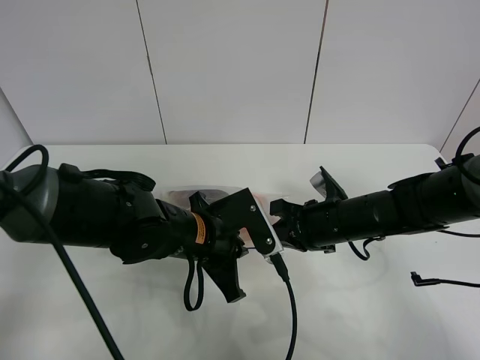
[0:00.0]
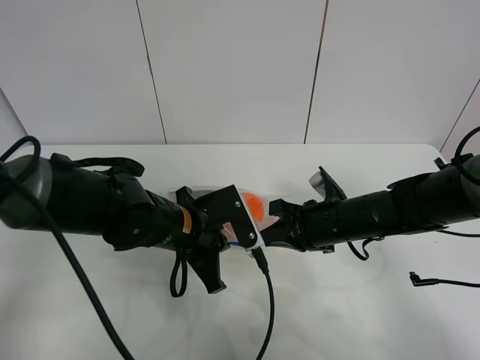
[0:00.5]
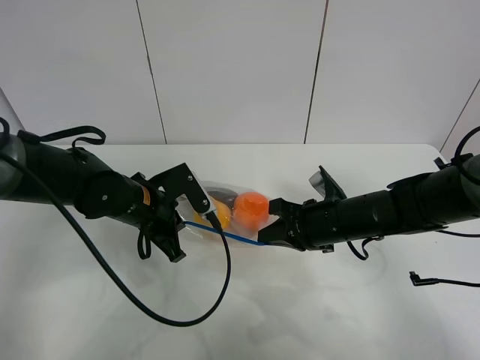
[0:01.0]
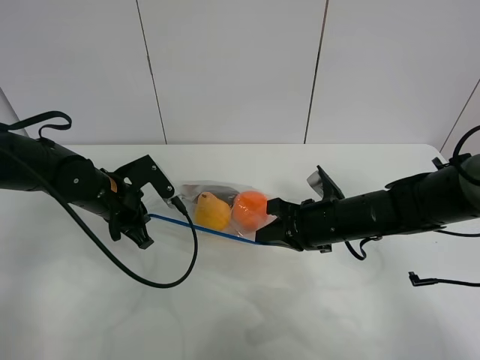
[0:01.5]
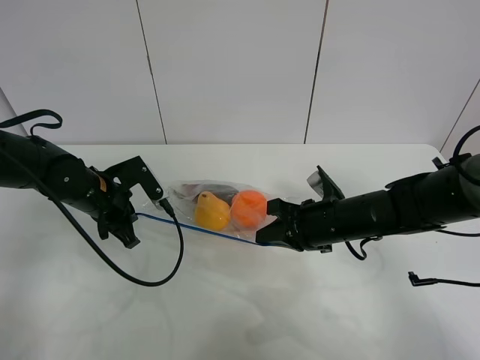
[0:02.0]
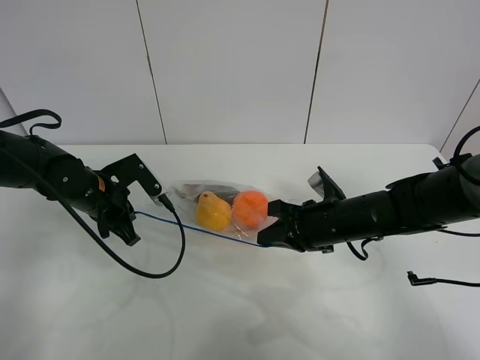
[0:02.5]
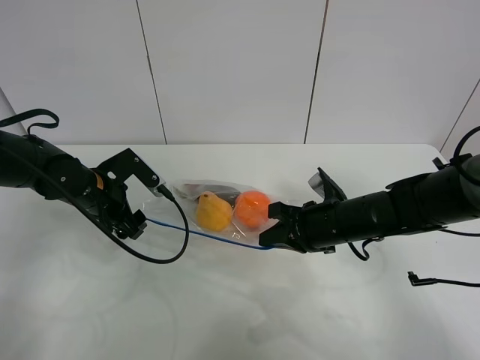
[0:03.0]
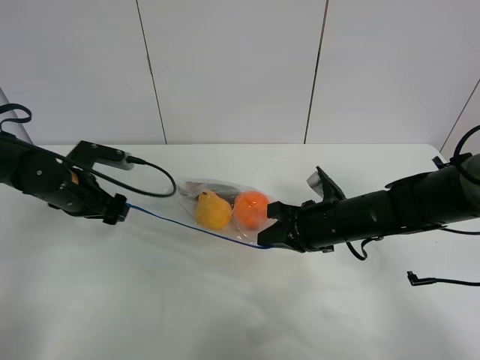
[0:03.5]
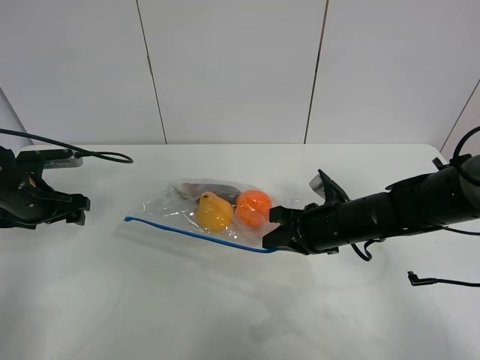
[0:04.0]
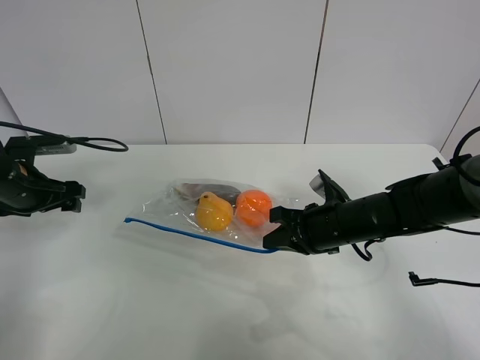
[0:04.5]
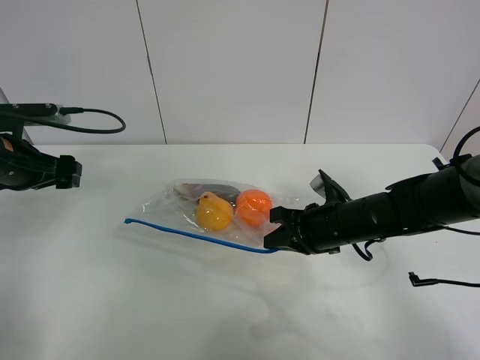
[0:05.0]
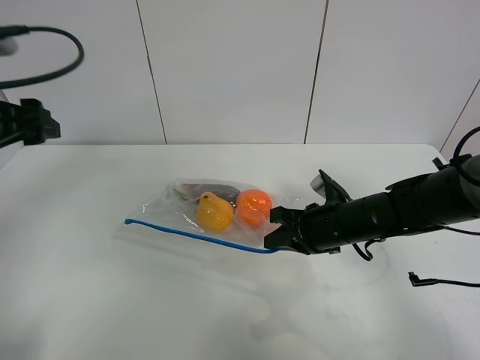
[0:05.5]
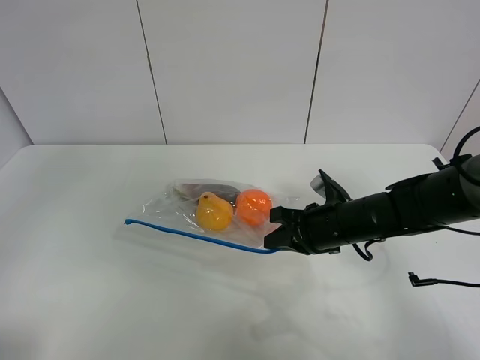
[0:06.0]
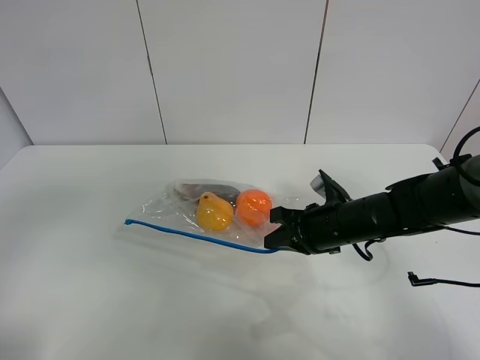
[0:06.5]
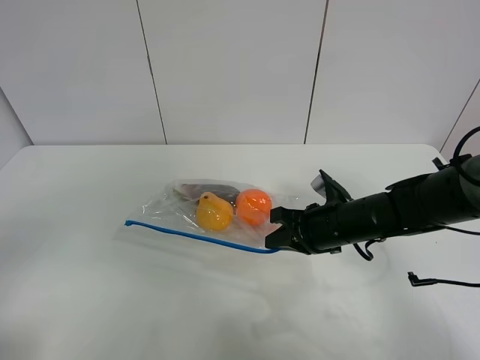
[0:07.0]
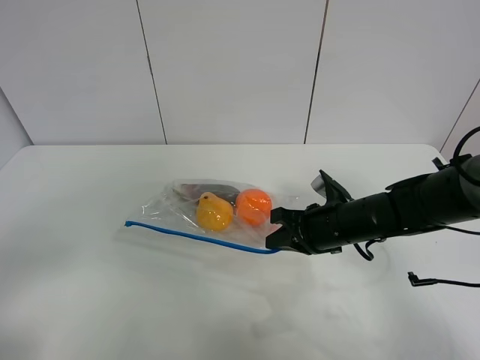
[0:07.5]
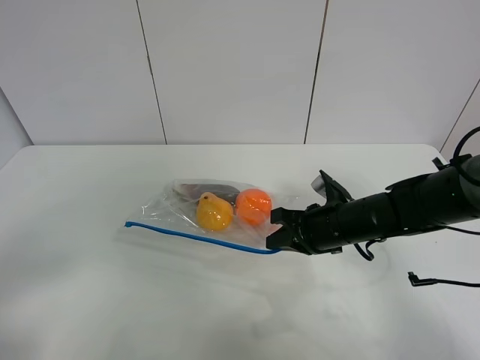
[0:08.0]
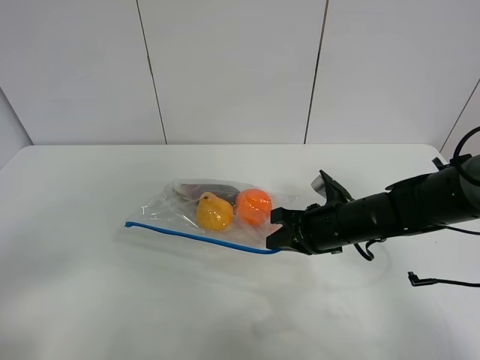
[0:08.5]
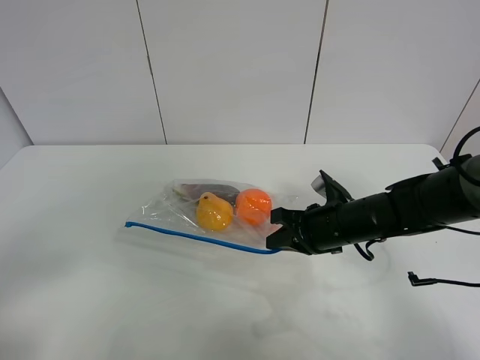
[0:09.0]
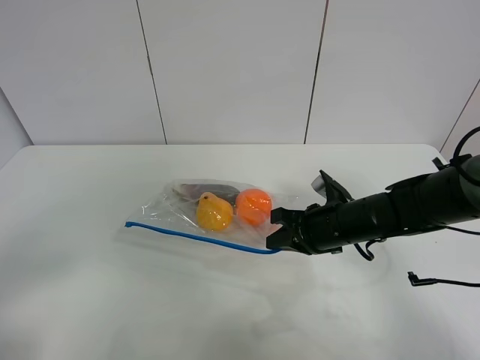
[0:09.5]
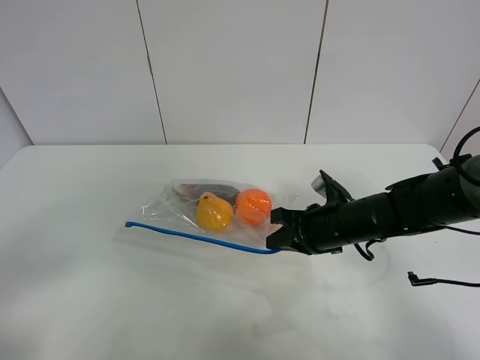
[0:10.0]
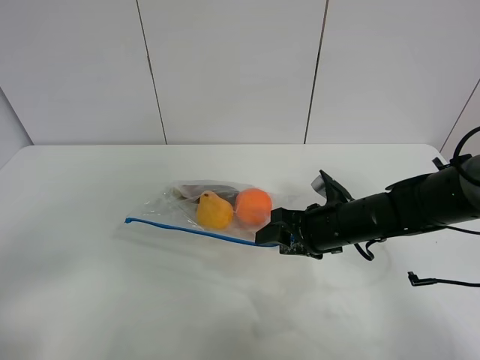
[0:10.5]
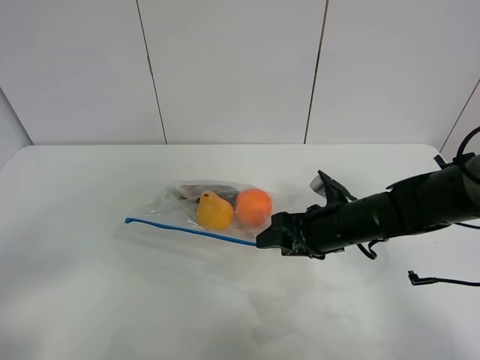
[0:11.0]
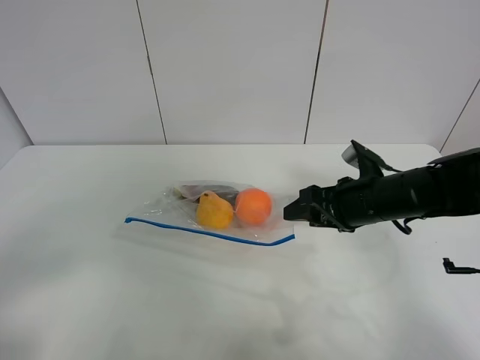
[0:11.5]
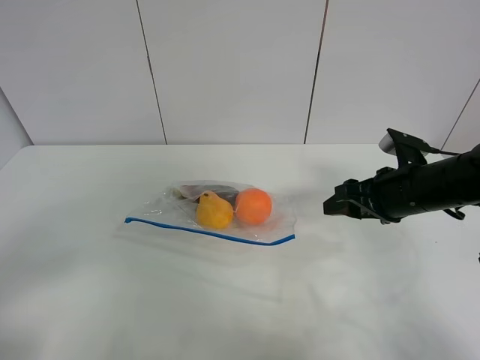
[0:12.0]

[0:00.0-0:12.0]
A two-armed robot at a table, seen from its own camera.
Step, 0:00.0 to 0:03.0: Pull the fruit bag with left gripper.
0:00.0 to 0:02.0: The left gripper heads to the left and forward, covering approximately 20 cm.
0:02.0 to 0:04.0: The left gripper goes about 10 cm to the left, and opens its fingers.
0:04.0 to 0:06.0: The left gripper travels upward and backward by about 35 cm.
0:06.0 to 0:08.0: The left gripper heads downward and backward, covering about 20 cm.
0:08.0 to 0:10.0: Neither gripper changes place.
0:10.0 to 0:12.0: The right gripper travels to the right and upward by roughly 10 cm, and opens up.

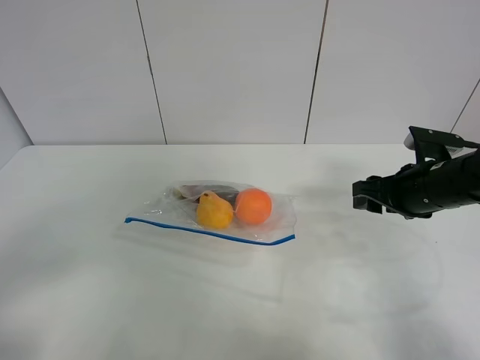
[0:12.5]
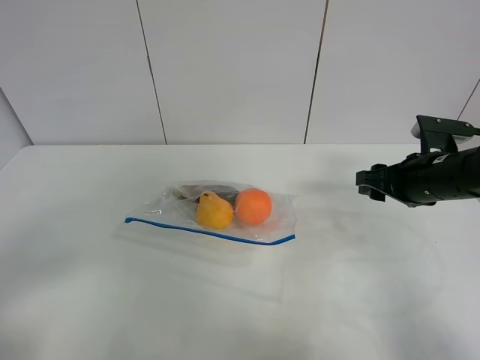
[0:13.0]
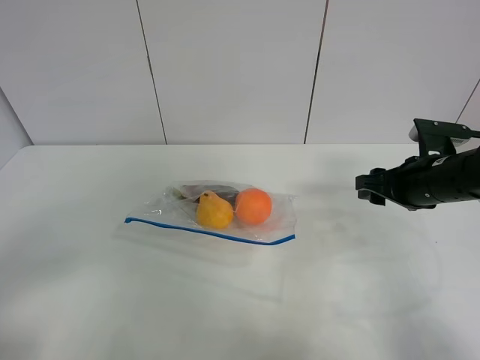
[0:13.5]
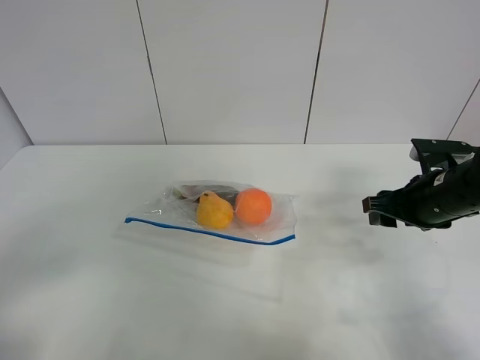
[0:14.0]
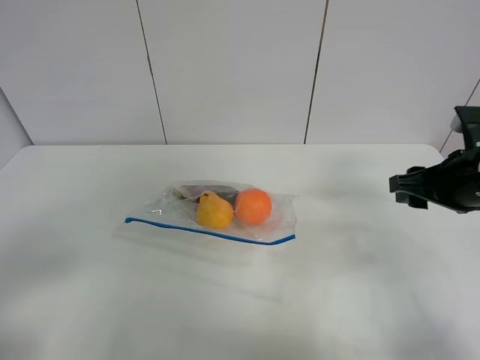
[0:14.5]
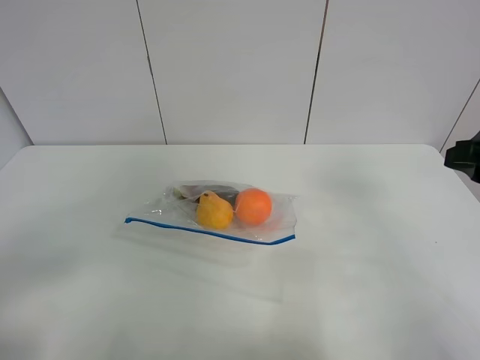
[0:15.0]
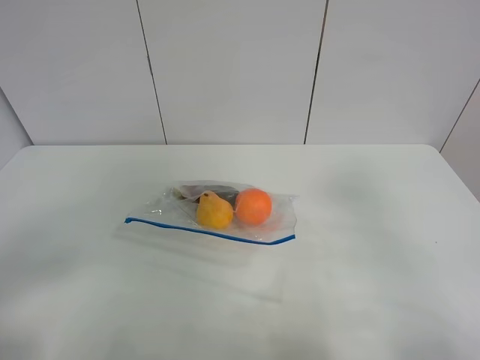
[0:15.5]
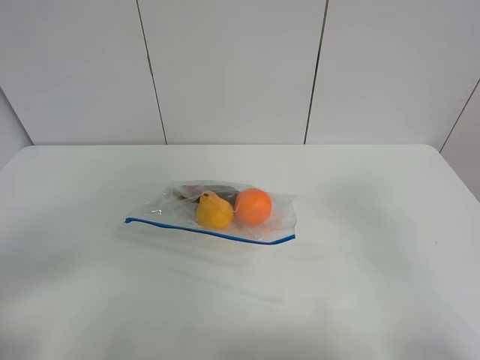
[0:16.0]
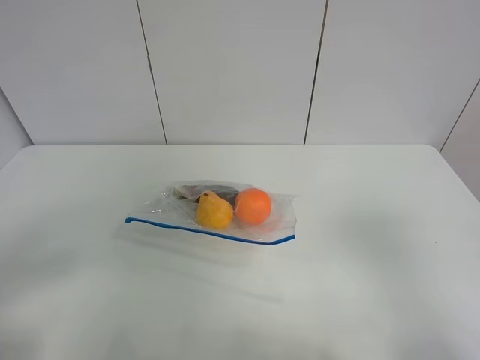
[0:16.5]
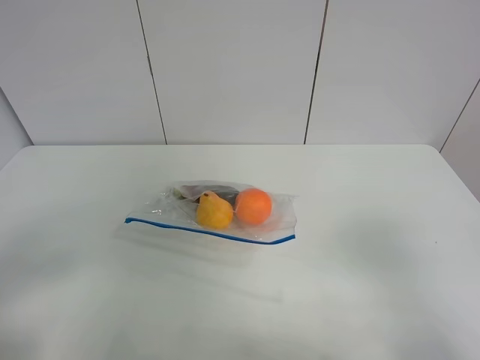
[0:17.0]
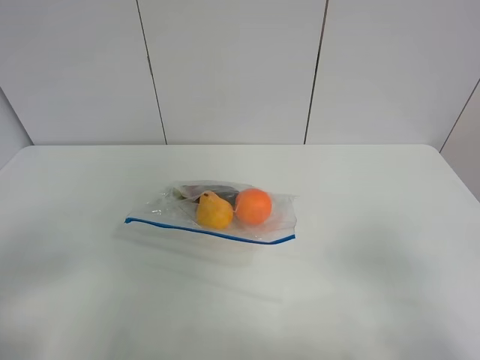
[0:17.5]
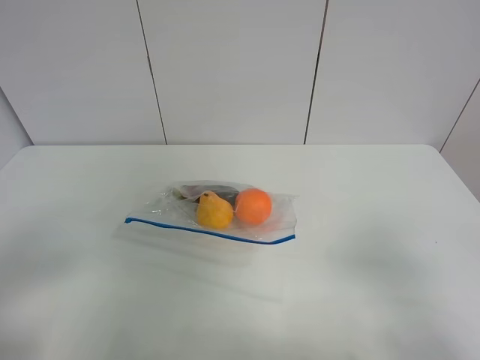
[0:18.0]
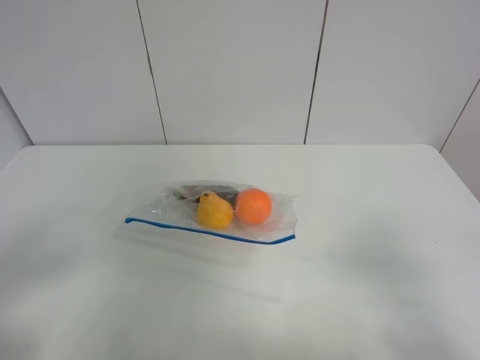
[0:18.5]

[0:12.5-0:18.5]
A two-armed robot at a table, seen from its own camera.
0:12.5 to 0:14.5: The right gripper shifts about 5 cm upward.
0:14.5 to 0:16.5: The right gripper goes about 25 cm backward.

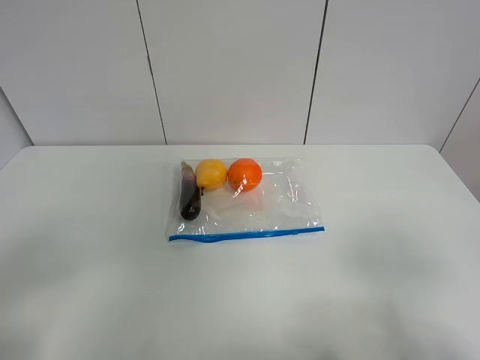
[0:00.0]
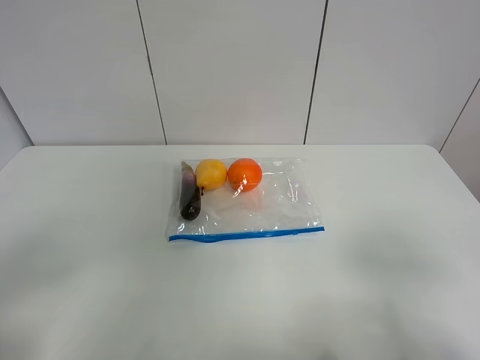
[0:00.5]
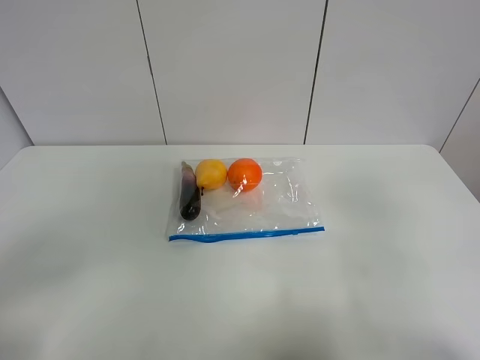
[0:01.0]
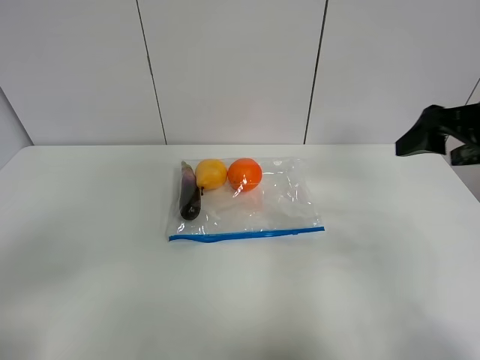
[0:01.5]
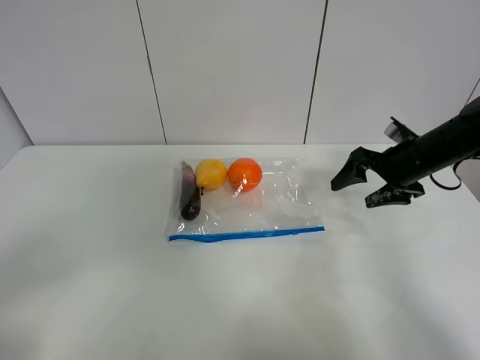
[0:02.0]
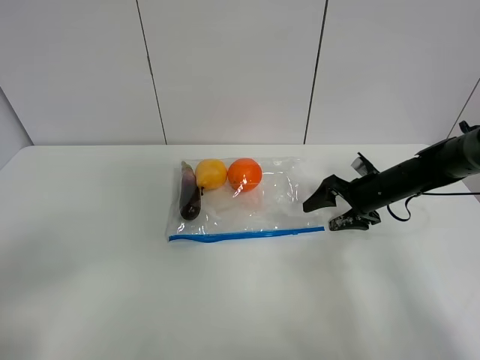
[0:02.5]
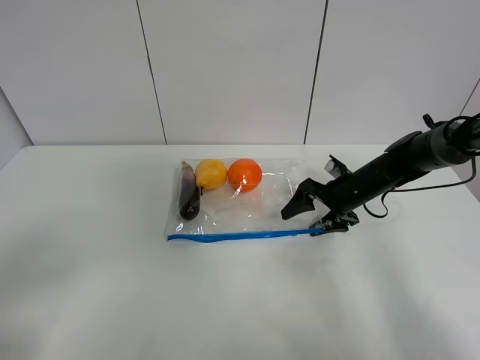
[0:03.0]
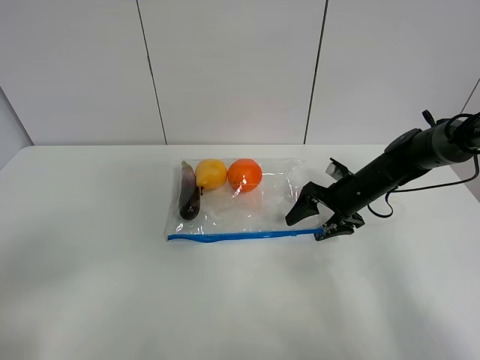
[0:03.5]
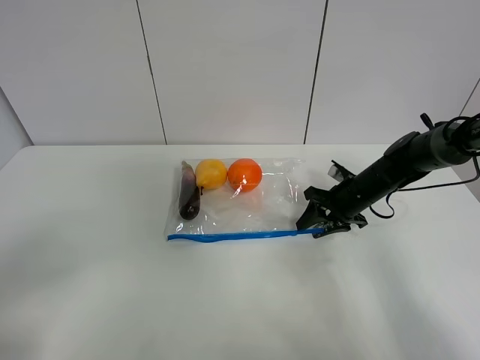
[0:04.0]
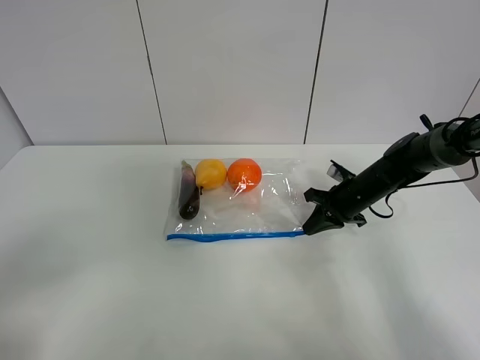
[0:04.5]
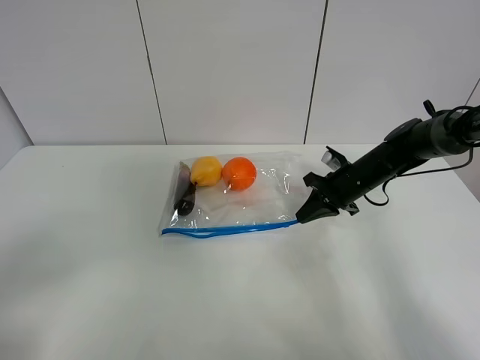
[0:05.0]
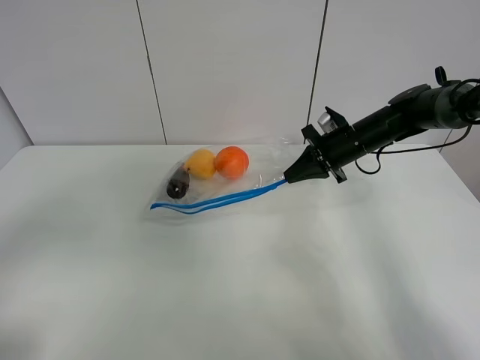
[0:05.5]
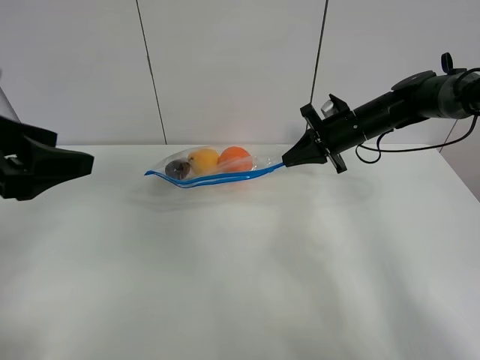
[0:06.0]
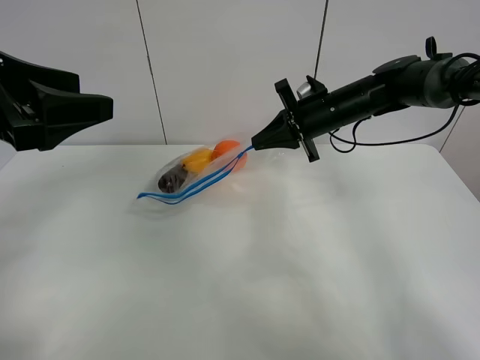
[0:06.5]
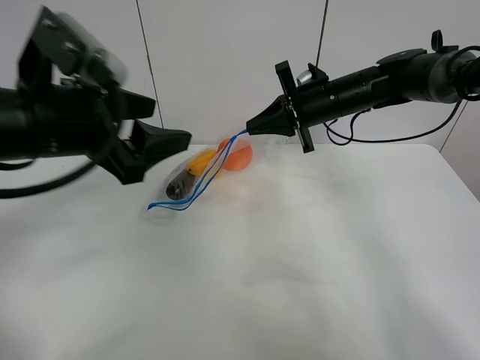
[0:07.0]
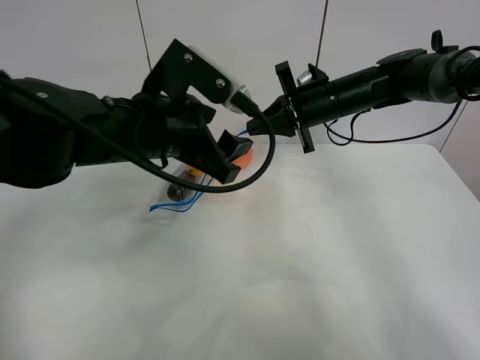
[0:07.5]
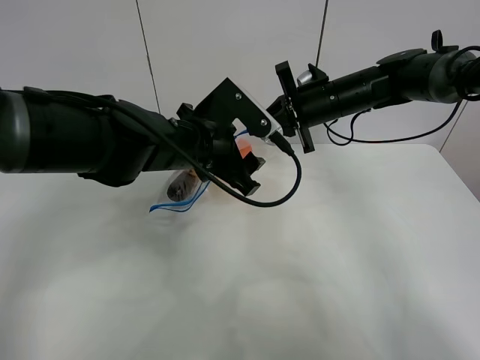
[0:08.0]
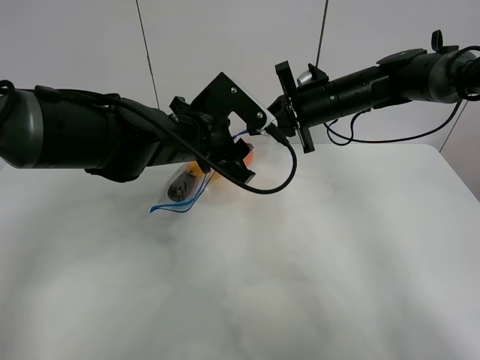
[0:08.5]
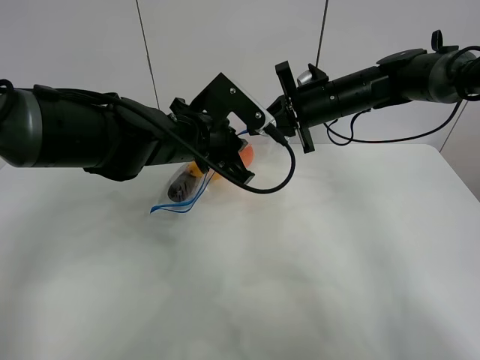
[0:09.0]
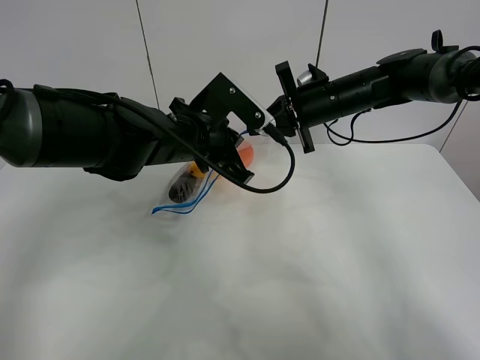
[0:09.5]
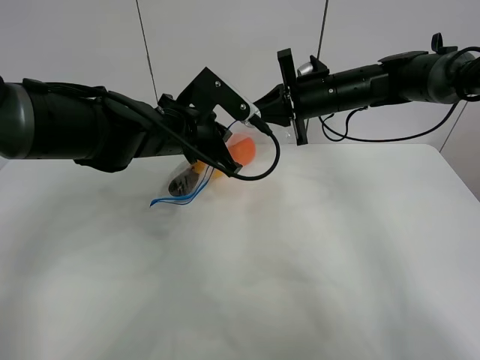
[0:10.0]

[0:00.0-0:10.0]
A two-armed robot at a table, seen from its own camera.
Step, 0:00.0 to 0:04.0: Grasp the fruit bag with right gripper.
Step, 0:04.5 to 0:06.5: Lift the fruit bag with your right gripper.
0:00.0 to 0:02.0: The right gripper shifts roughly 35 cm forward.
0:02.0 to 0:04.0: The right gripper travels downward and to the left by about 10 cm, and closes its fingers.
0:04.0 to 0:06.0: The left gripper moves forward, some 20 cm, while the right gripper heads upward and forward, covering about 10 cm, and closes.
0:06.0 to 0:08.0: The right gripper heads to the left and upward, covering roughly 10 cm. The left gripper shifts some 25 cm to the right, forward and downward.
0:08.0 to 0:10.0: The left gripper closes up.
